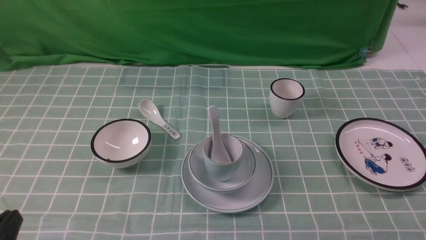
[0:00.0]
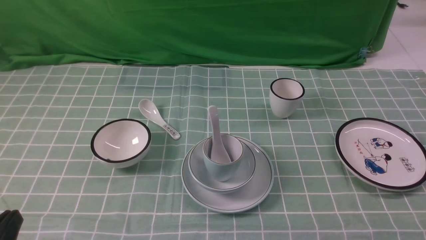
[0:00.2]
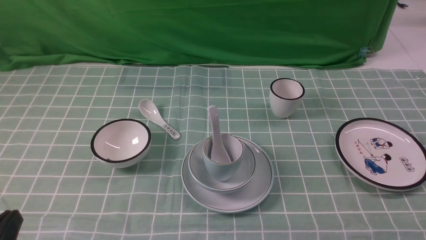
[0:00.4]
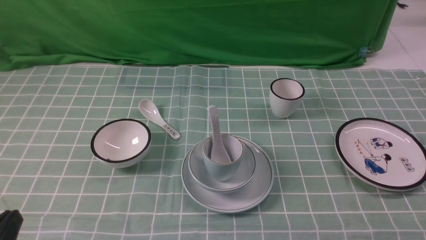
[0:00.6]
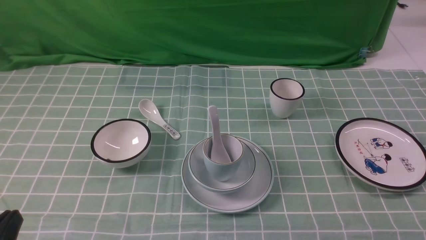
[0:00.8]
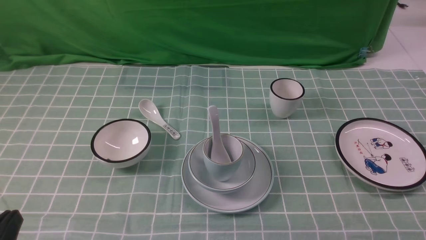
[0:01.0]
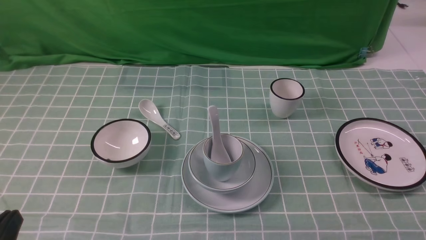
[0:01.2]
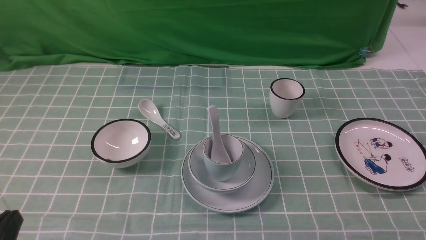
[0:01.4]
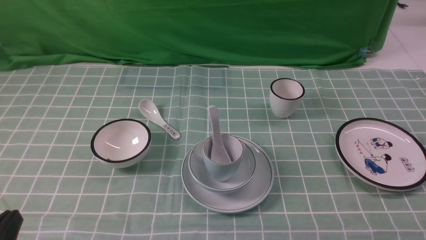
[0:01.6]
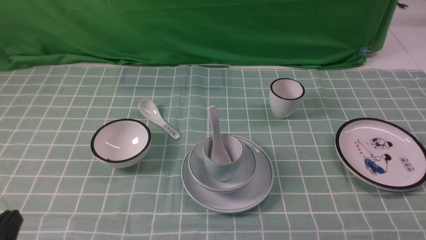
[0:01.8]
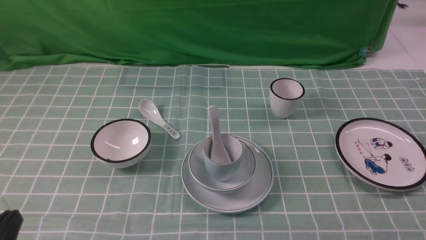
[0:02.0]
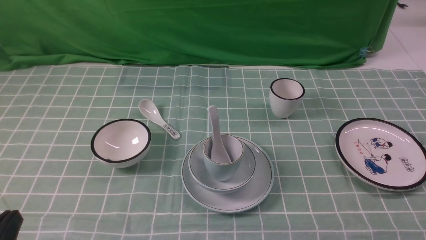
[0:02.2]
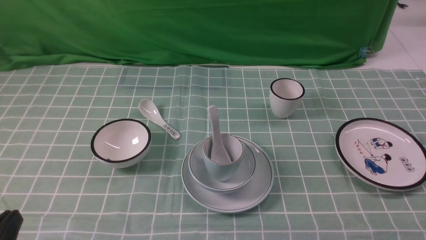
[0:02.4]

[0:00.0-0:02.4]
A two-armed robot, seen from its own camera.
Task of the whole recording: place the bowls on the plates on the blue tablecloth, put the cups on the bowls, and place the spoons in the cups.
0:00.0 to 0:02.4: Both grippers stay put.
